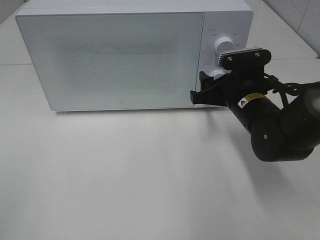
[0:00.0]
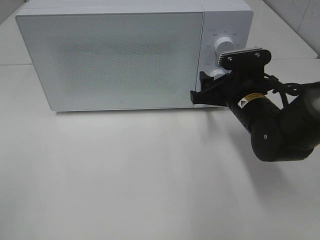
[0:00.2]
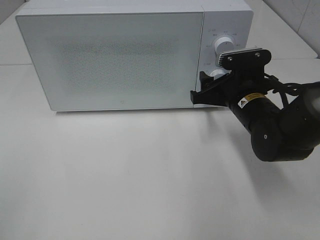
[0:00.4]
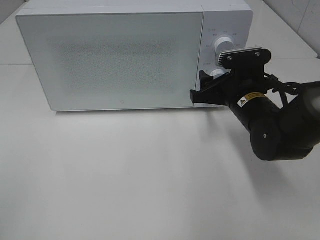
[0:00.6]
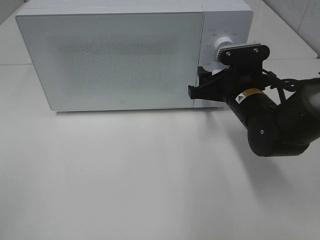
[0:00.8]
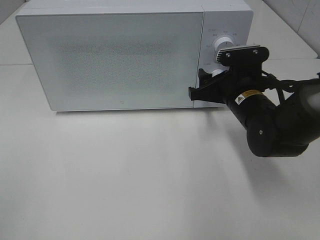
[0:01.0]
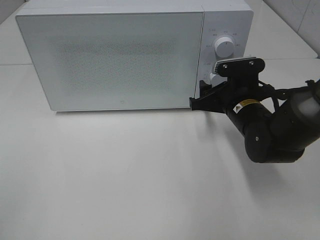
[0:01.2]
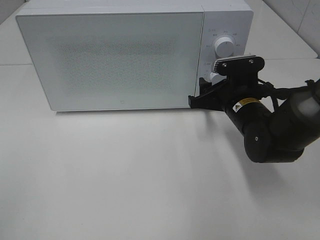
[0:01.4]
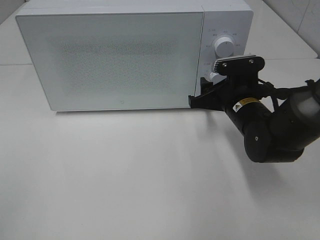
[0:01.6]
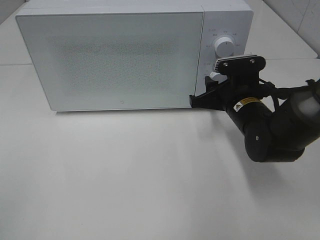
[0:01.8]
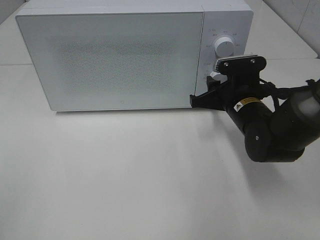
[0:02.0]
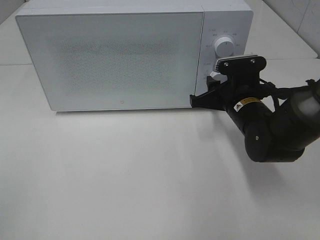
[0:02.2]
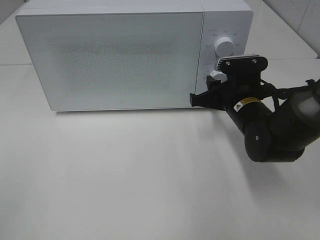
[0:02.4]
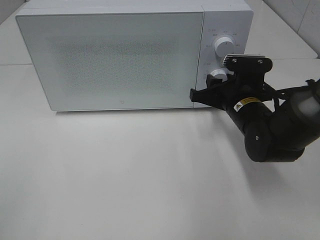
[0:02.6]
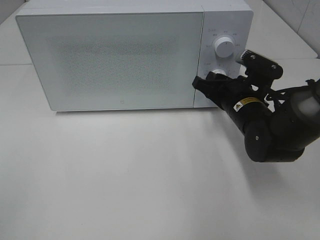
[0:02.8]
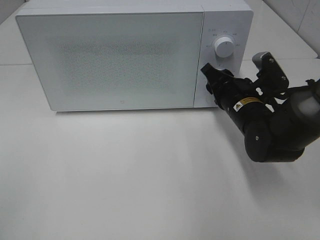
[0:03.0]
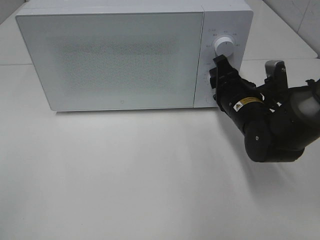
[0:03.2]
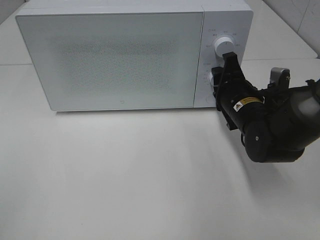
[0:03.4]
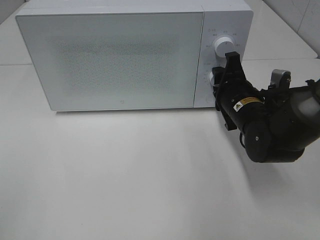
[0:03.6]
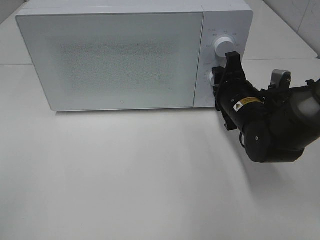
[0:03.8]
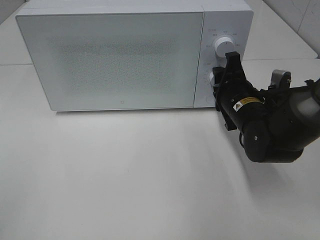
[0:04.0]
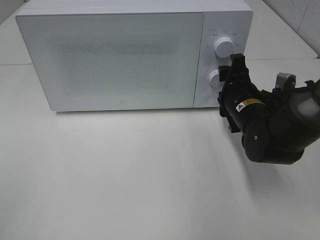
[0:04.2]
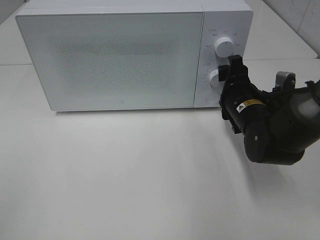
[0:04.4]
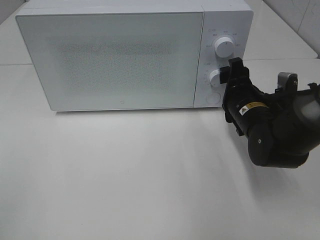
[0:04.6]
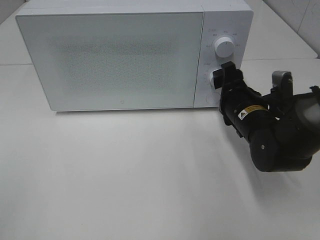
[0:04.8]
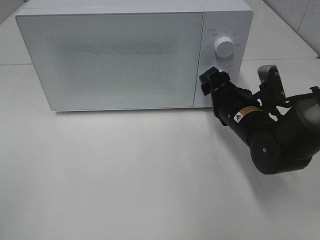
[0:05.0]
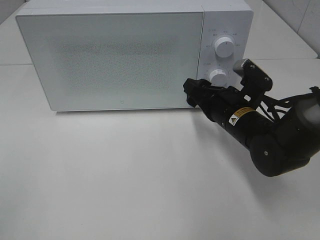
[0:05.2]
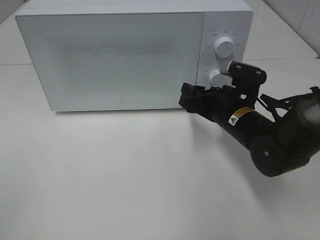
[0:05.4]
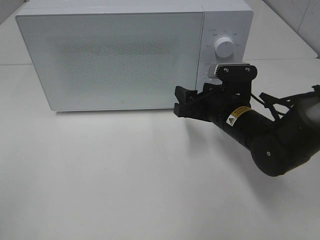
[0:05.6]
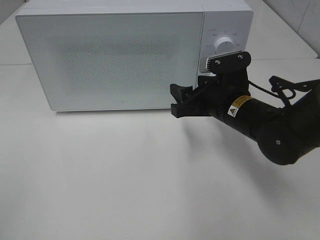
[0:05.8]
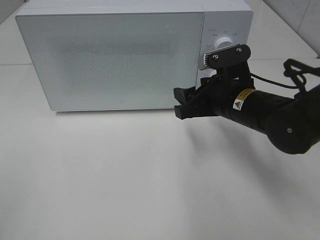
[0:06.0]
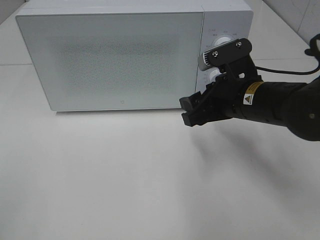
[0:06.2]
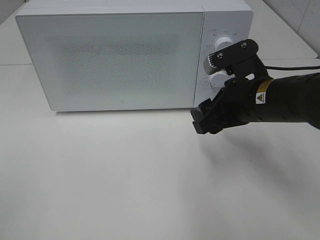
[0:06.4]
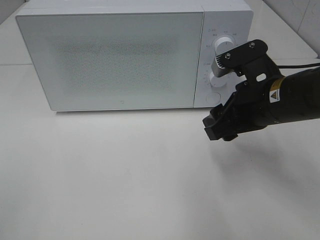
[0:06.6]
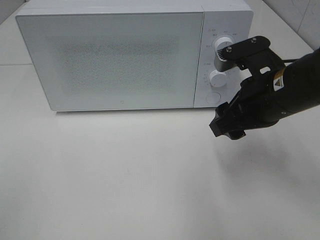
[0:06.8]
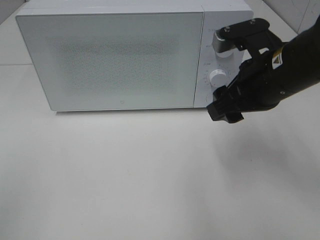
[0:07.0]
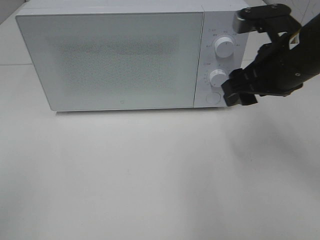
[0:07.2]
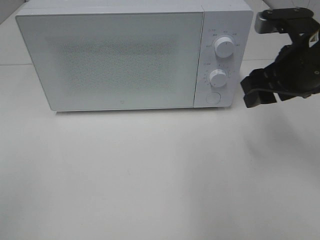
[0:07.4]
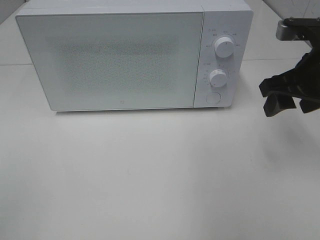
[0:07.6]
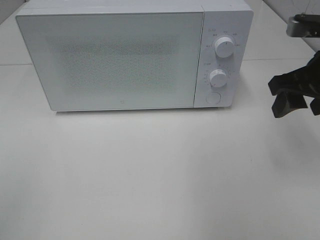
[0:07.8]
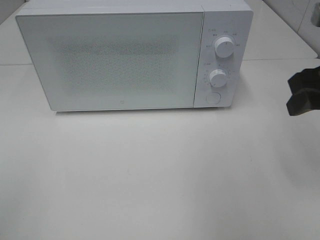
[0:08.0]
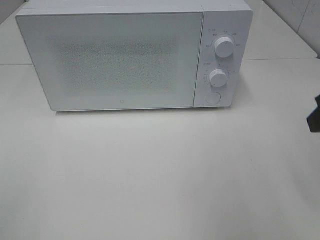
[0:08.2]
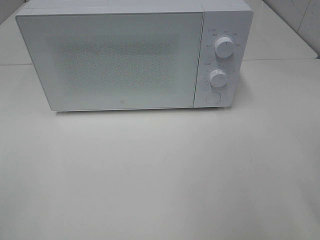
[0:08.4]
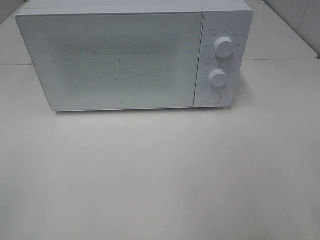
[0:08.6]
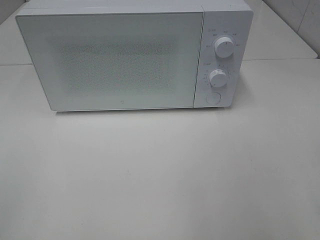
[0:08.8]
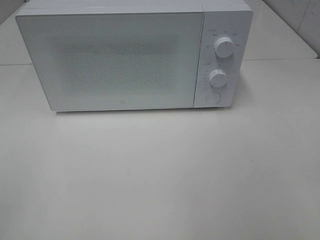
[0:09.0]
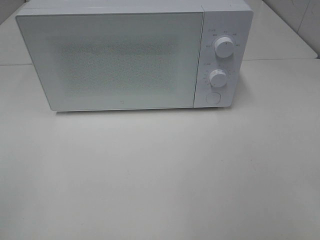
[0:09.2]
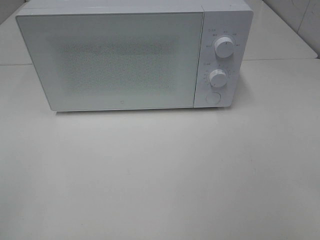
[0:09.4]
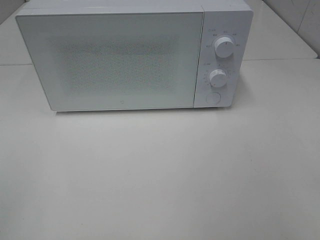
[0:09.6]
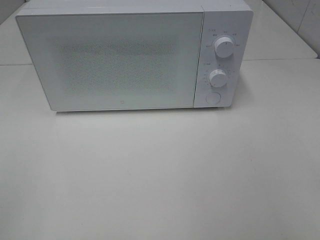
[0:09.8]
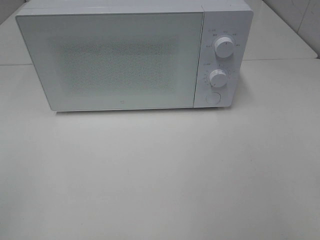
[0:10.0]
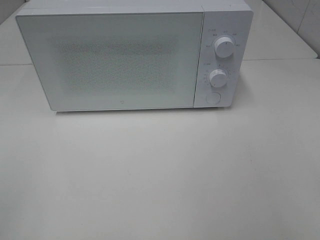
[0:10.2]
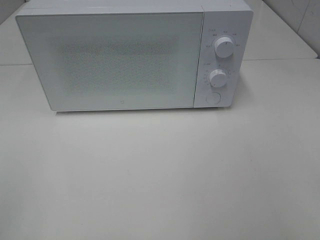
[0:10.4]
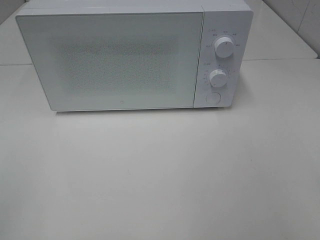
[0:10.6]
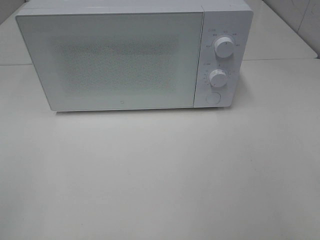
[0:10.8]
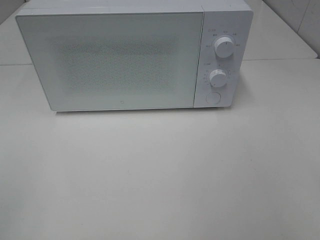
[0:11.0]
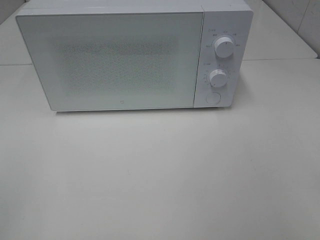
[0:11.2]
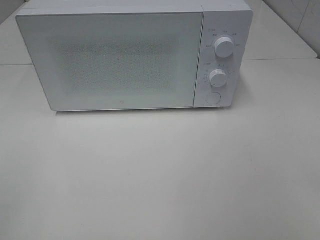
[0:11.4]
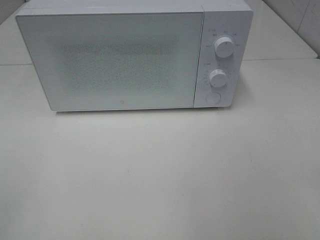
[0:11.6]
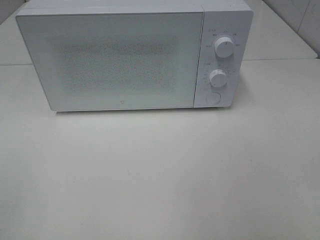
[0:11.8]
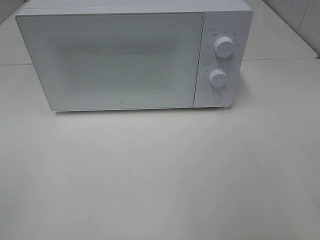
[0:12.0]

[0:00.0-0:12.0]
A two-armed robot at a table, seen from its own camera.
Task of the whole recording: Heat the burger.
Step, 0:00.0 to 0:04.0: Right hand: twist timer button.
0:00.0 to 0:01.6: There are only small adjustments of the grippers.
0:03.0 to 0:04.4: The right gripper opens its fingers.
0:04.4 to 0:06.0: The right gripper moves approximately 5 cm.
0:06.0 to 0:07.6: The right gripper shifts about 15 cm to the right and upward.
0:07.6 to 0:09.0: The right gripper is displaced backward by some 20 cm.

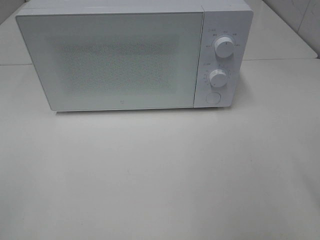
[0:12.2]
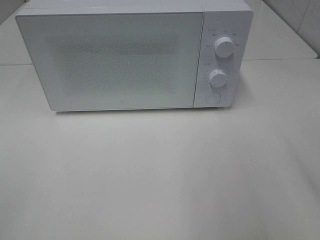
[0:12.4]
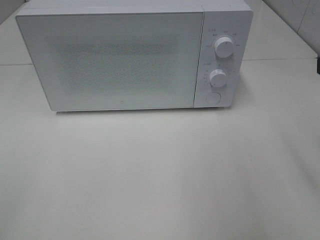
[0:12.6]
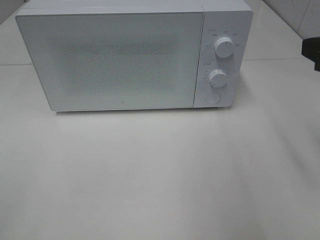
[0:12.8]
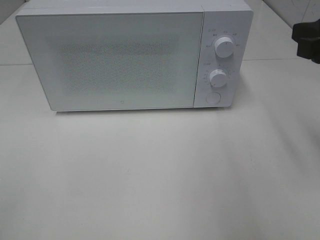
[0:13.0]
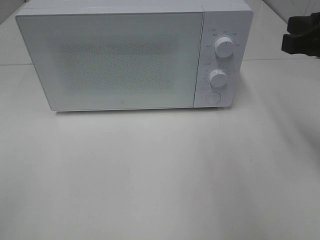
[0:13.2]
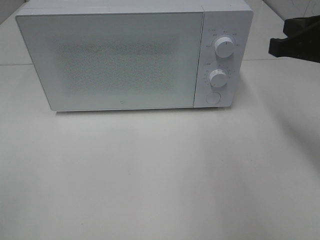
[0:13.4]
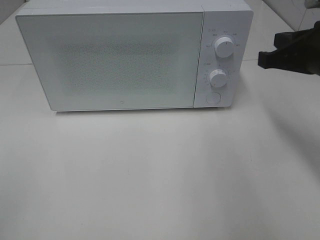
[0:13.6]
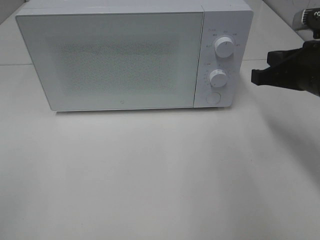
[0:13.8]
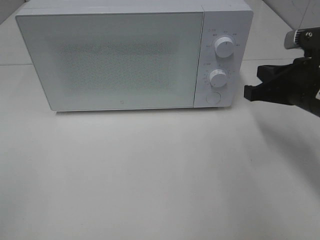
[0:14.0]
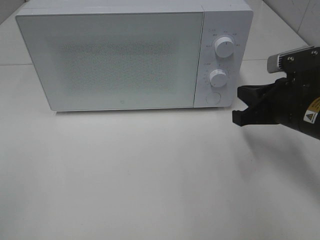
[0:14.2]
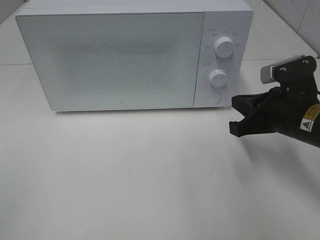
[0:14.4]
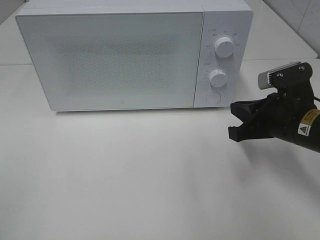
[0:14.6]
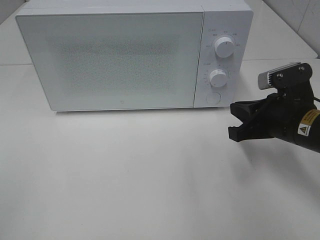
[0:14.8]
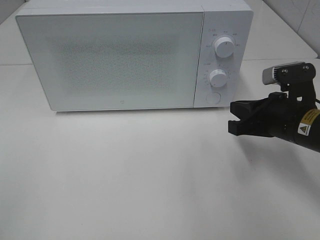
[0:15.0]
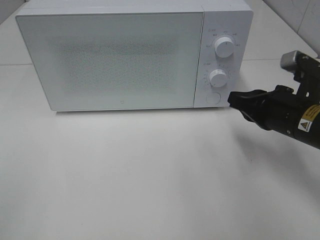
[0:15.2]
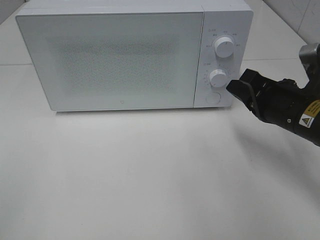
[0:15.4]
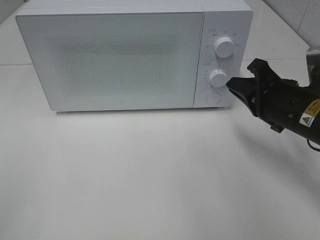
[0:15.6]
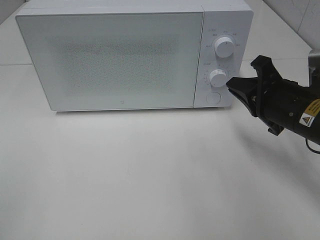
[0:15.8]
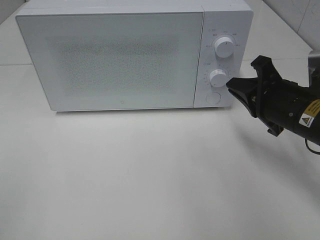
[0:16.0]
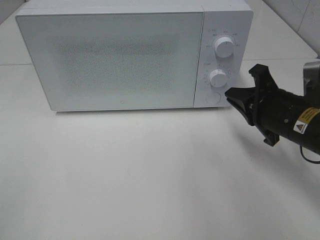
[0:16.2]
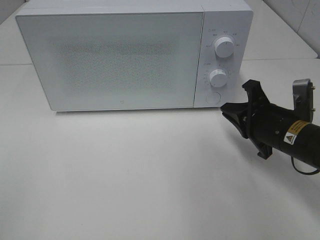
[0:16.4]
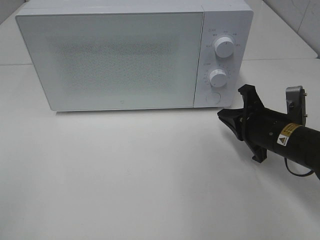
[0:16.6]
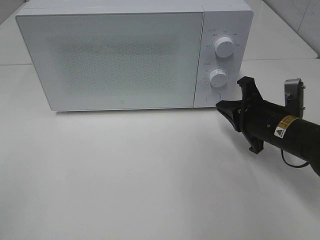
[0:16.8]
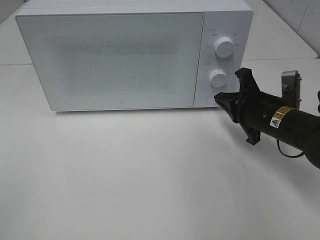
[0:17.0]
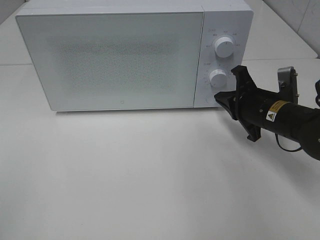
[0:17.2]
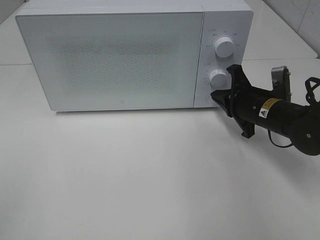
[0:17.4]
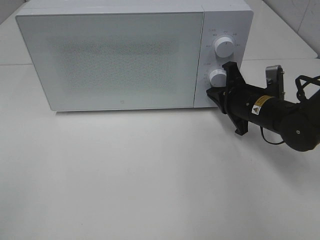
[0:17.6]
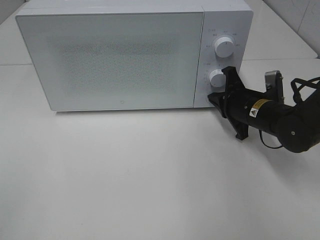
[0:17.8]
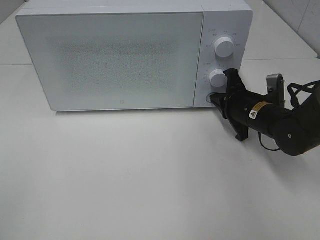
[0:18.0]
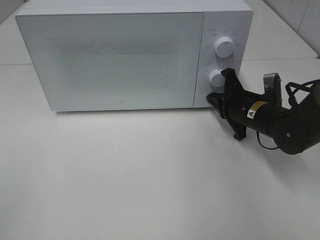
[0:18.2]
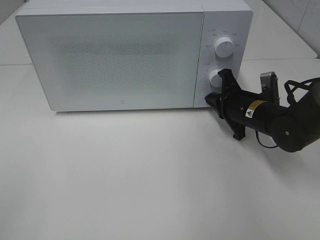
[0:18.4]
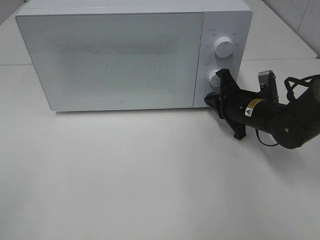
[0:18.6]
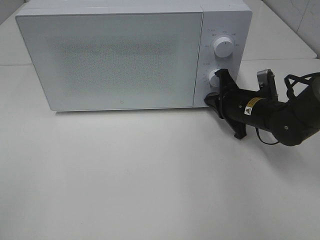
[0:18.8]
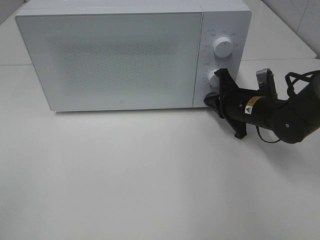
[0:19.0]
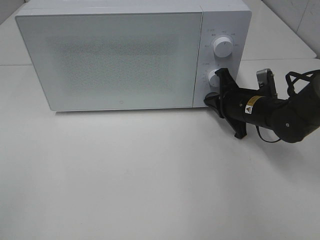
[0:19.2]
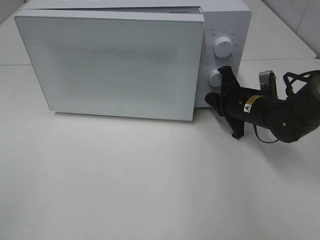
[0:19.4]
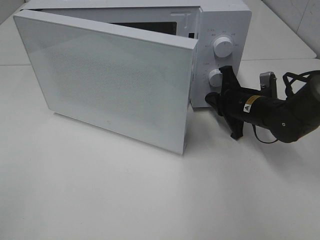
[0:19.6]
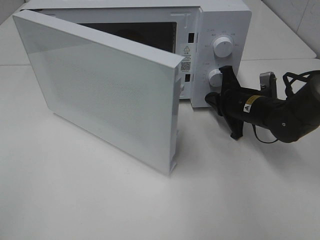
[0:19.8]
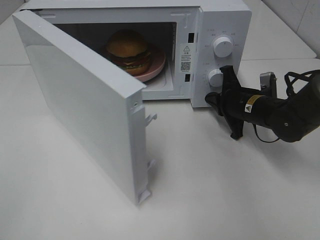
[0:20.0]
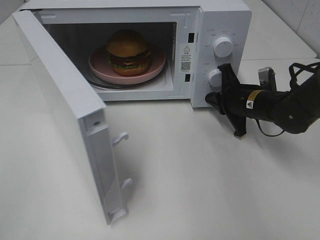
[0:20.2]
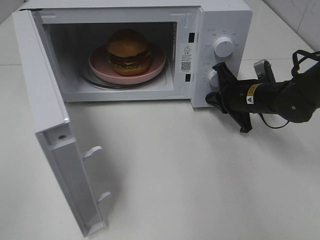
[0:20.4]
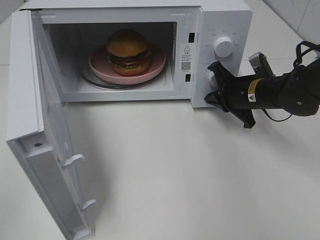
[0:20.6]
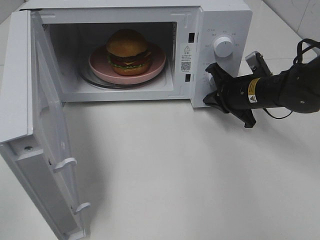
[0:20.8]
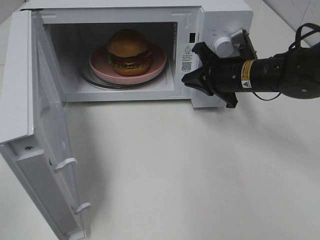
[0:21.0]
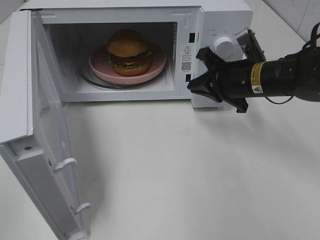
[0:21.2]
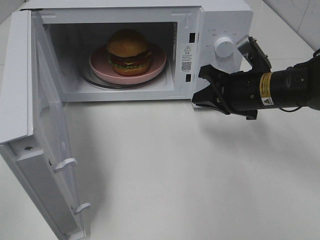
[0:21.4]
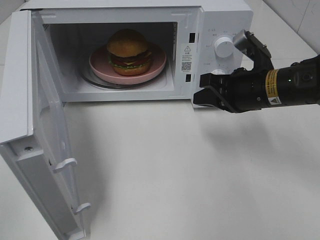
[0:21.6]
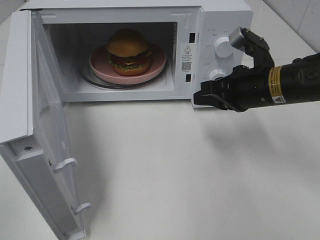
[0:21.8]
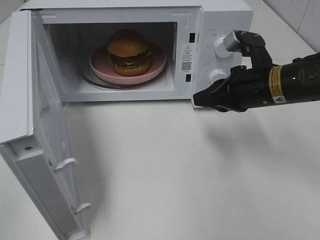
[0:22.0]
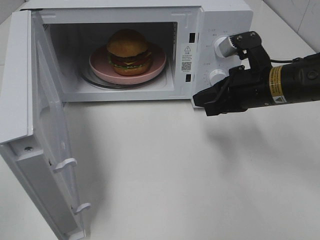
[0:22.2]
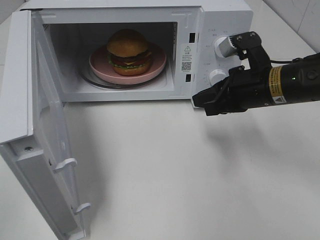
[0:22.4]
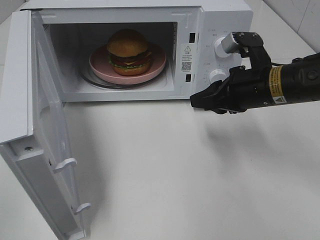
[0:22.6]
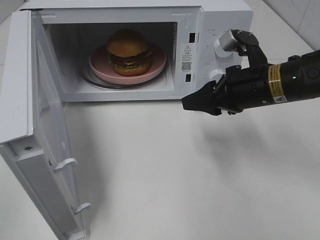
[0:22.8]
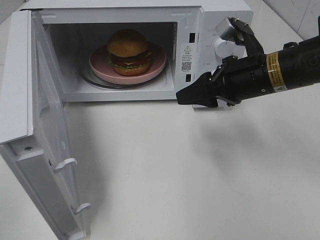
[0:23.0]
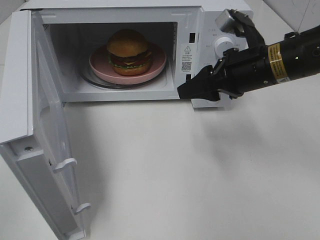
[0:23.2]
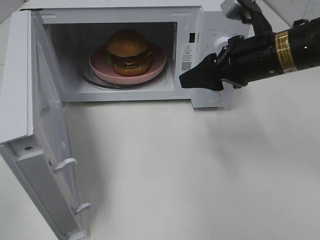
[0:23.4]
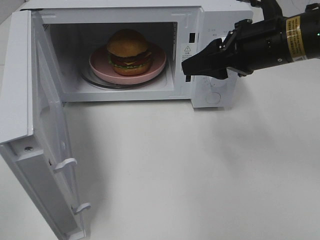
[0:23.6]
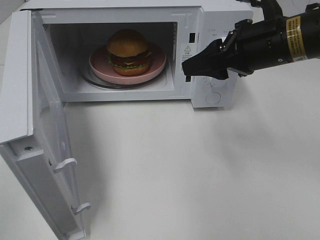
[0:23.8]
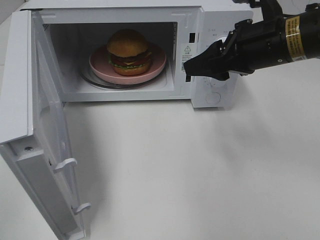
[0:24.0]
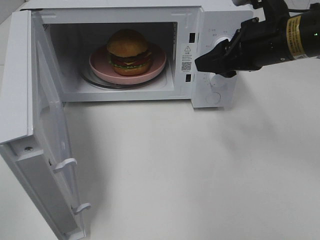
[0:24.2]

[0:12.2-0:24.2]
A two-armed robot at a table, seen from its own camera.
Task of the whole recording: Heat the burger.
Step, 0:12.2 to 0:20.8: Right hand: press the switch.
0:12.2 to 0:13.8: The right gripper is displaced forward and downward by some 15 cm, and closes.
0:13.8 to 0:15.2: The right gripper travels downward by roughly 5 cm.
0:15.2 to 0:16.6: The right gripper moves downward, about 5 cm.
0:16.6 to 0:18.2: The right gripper shifts roughly 10 cm forward.
0:18.2 to 0:19.8: The grippers make only small movements.
0:19.8 to 0:21.2: The right gripper goes about 5 cm upward.
0:21.2 to 0:22.6: The right gripper opens.
0:22.6 to 0:24.2: The right gripper shifts roughly 5 cm upward.
